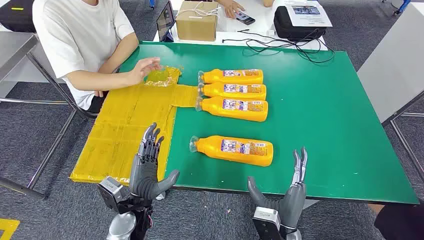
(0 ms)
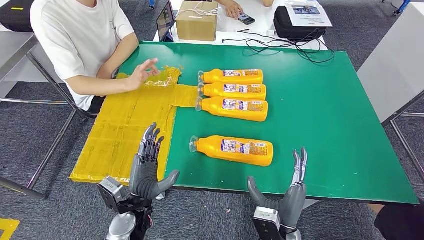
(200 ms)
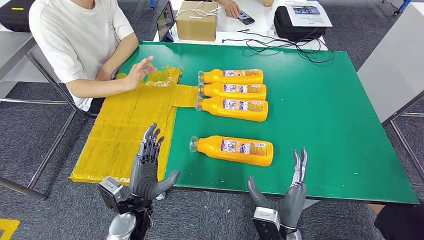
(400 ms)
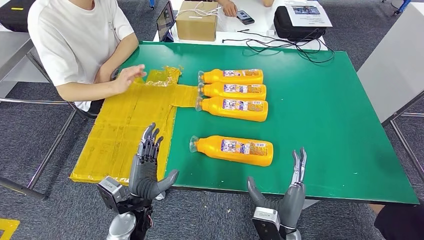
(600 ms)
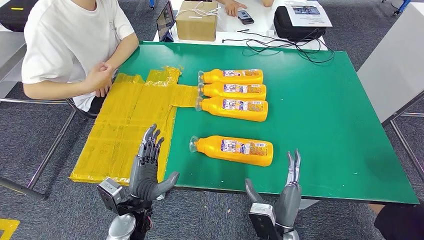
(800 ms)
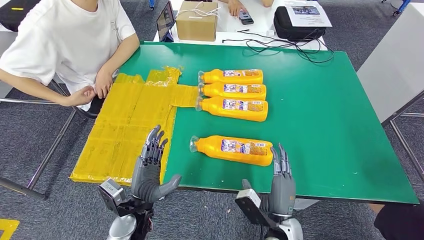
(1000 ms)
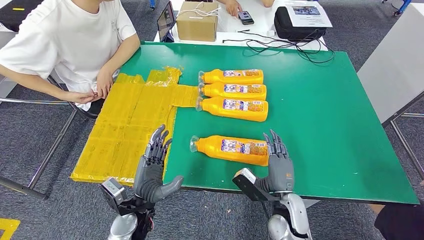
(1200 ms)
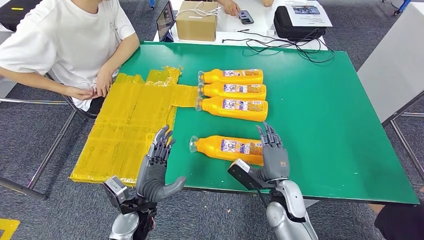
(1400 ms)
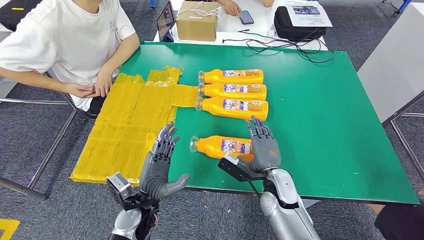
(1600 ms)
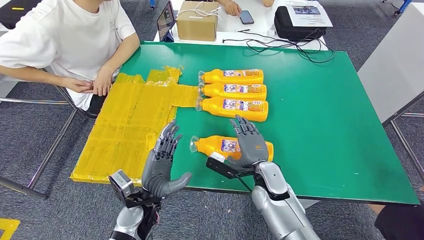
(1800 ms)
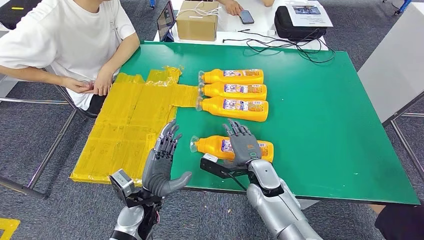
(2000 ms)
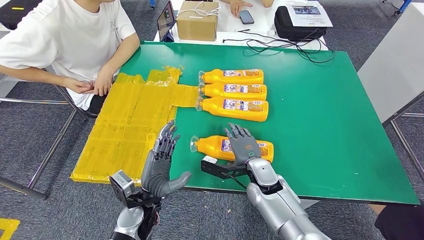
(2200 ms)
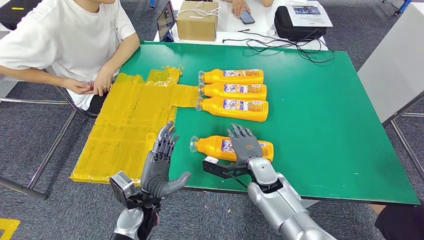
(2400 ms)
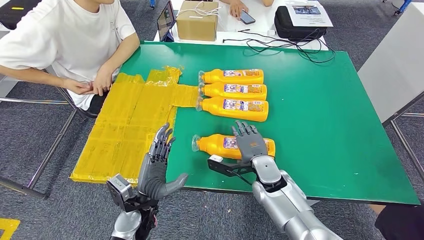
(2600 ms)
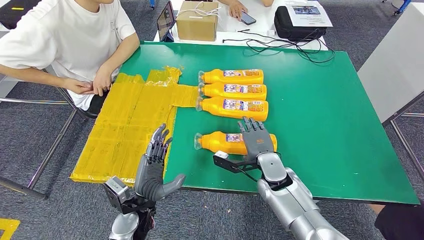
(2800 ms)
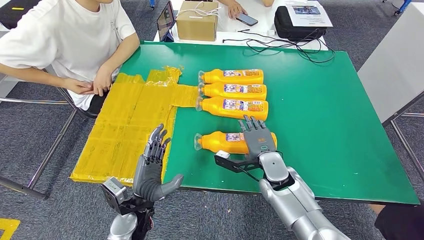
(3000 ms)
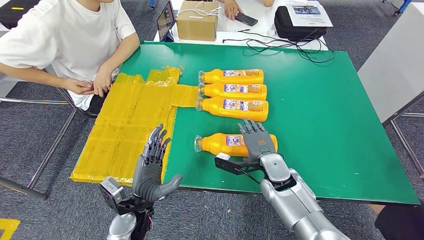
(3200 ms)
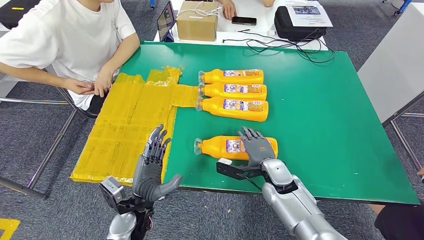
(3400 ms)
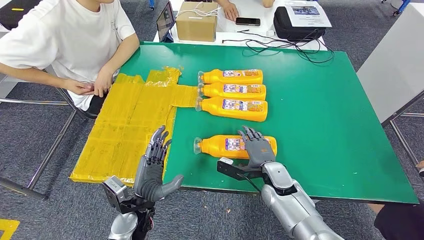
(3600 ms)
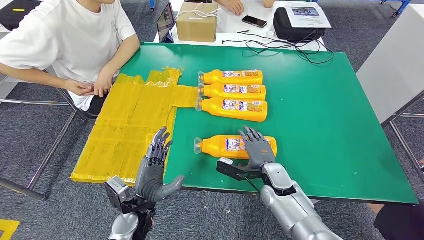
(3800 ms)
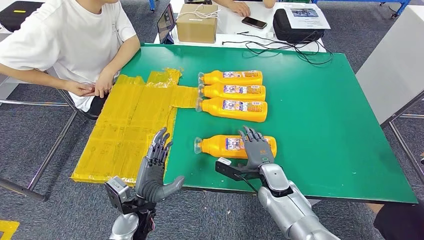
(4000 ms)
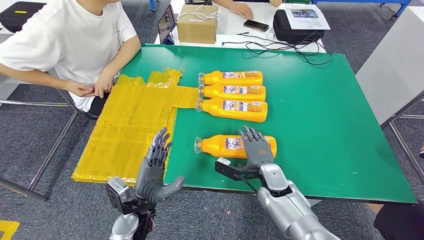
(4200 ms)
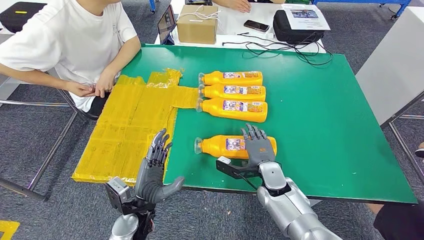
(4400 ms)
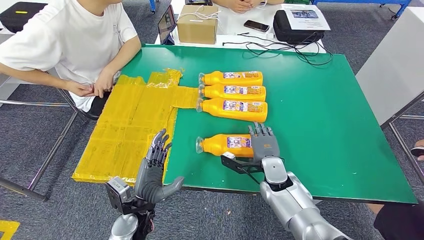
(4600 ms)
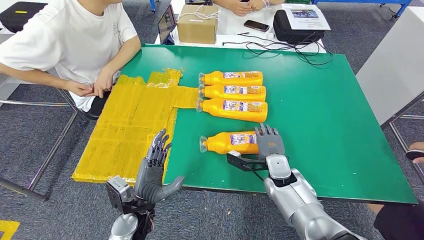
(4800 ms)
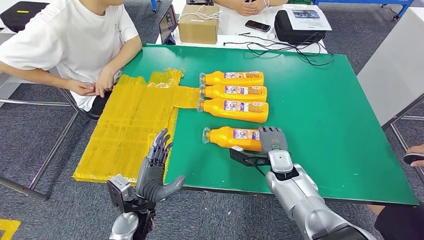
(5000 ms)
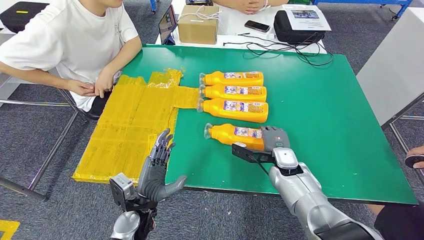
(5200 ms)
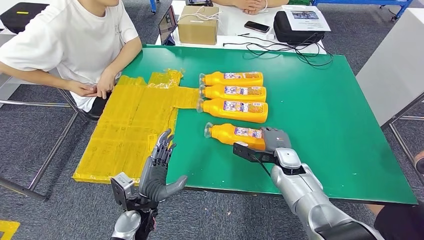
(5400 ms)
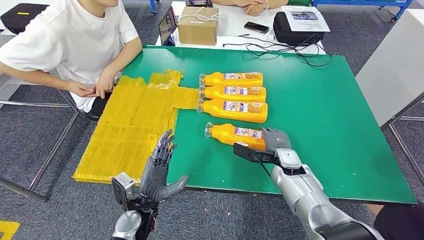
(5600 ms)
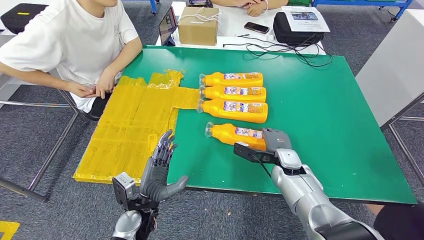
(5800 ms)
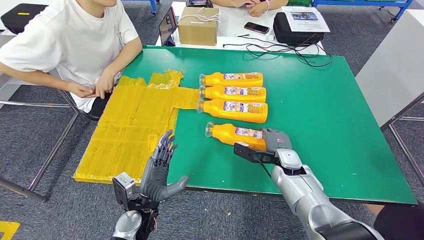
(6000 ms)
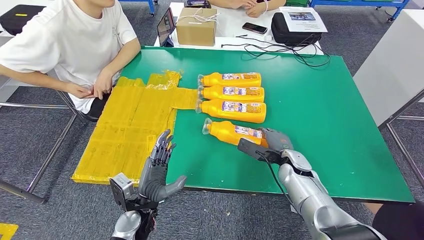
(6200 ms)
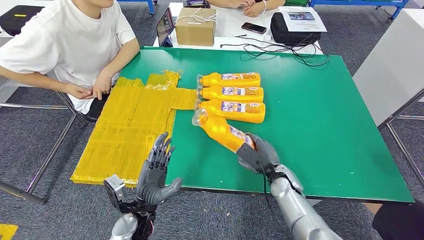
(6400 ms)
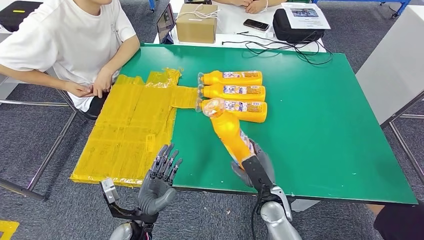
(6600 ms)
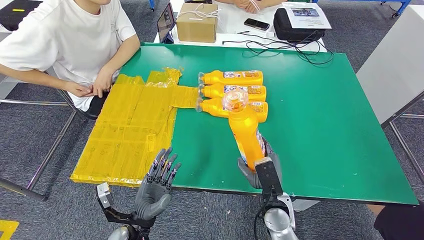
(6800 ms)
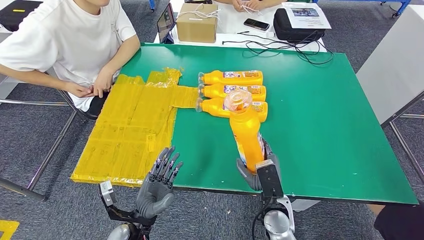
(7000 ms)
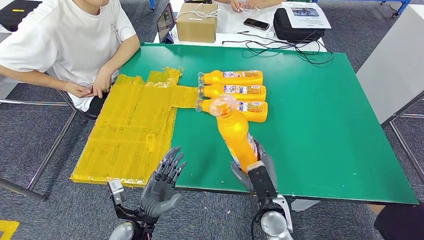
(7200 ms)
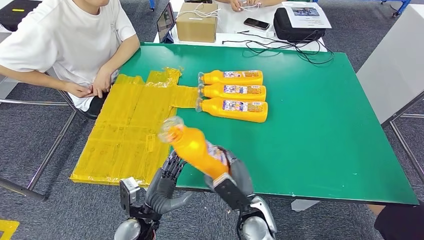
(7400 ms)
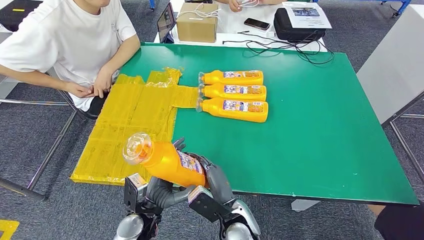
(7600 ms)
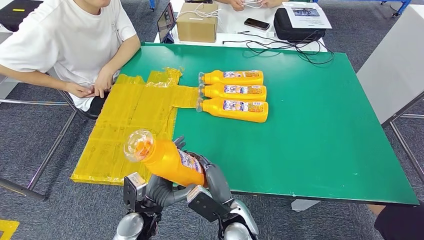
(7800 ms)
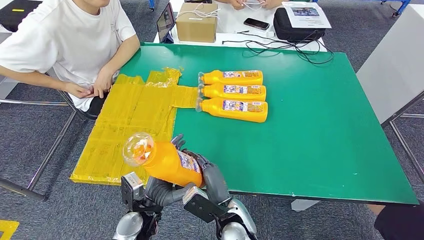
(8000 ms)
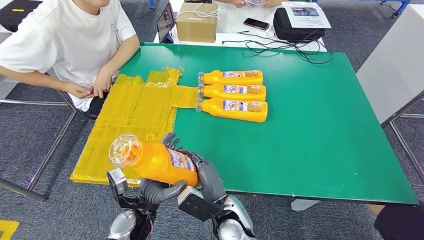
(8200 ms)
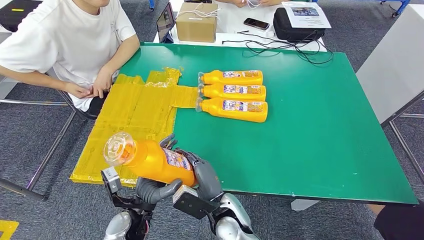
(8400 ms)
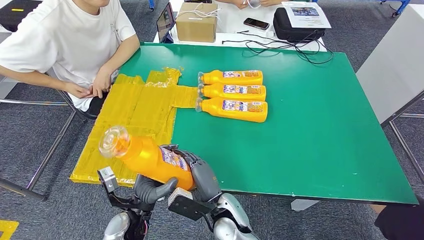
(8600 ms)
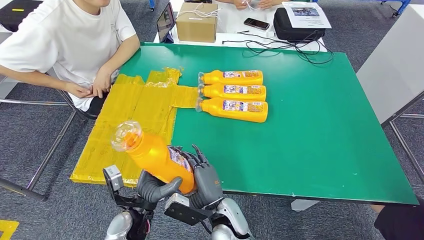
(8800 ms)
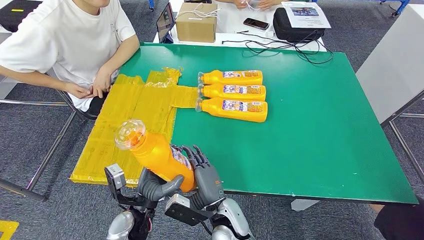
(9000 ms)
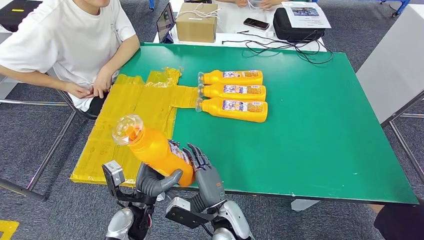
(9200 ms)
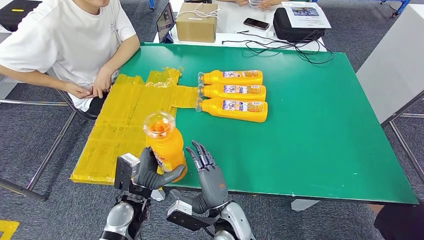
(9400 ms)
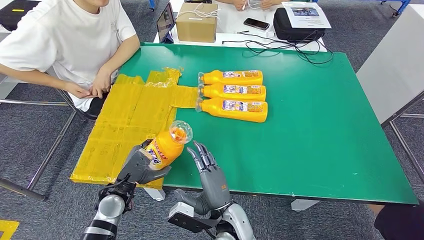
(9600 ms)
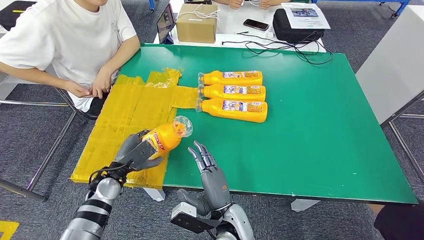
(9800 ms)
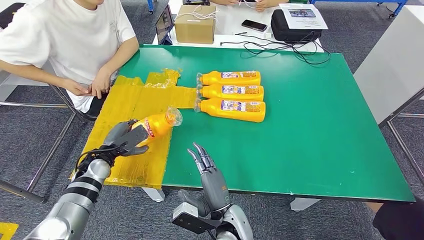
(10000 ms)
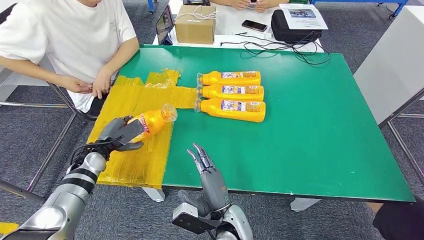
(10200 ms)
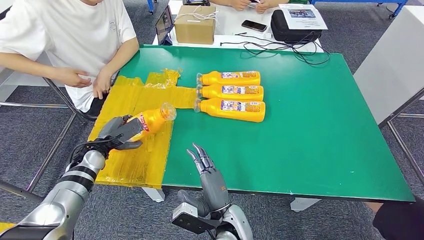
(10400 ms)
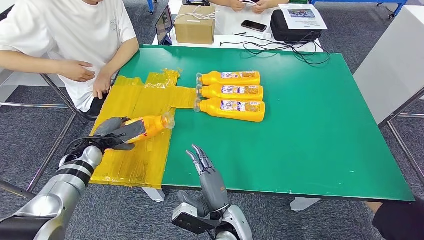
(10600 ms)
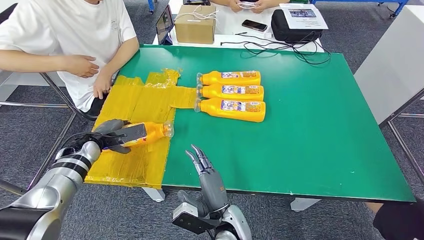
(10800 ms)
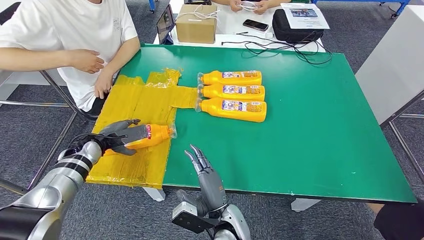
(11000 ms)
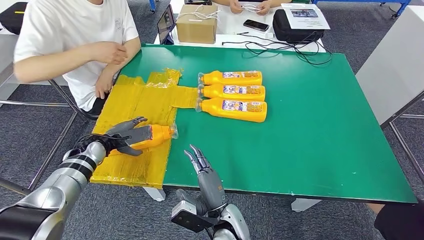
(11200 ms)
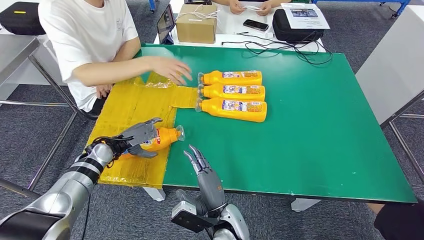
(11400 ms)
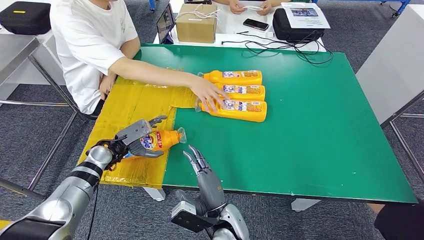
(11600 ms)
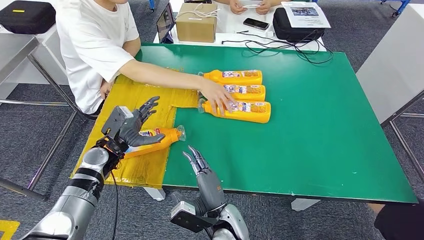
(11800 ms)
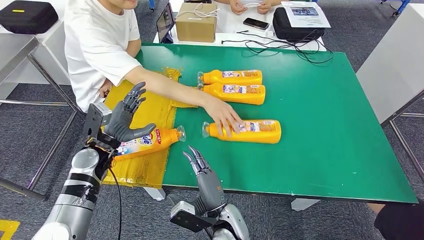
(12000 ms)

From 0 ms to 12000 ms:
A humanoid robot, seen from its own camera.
Step, from 0 ms to 8600 ms: Take the fast-moving consumer goods bottle from the table.
From 3000 ms to 4400 ms: The hands make only small movements.
From 4400 ms to 6000 ms: The right hand travels to the right by some 5 cm.
From 7600 ms to 9000 ms: The hands move only a little.

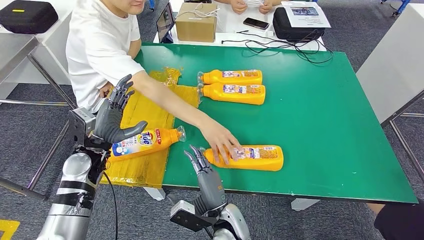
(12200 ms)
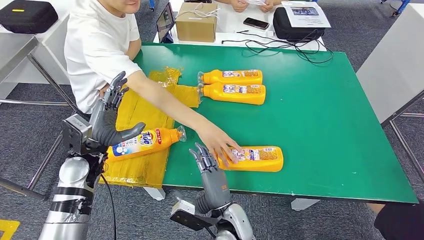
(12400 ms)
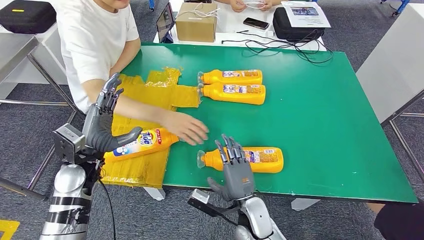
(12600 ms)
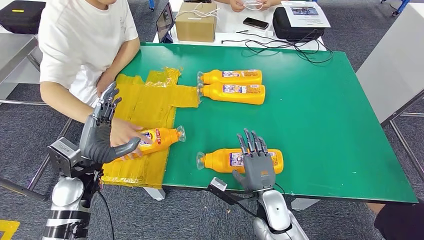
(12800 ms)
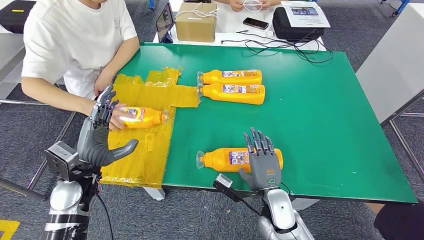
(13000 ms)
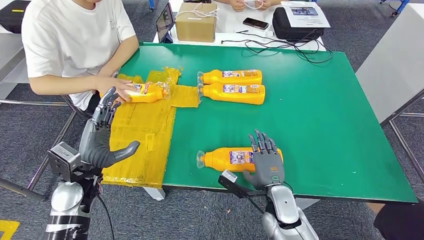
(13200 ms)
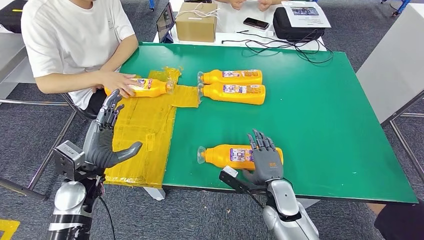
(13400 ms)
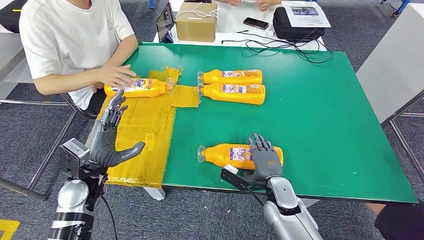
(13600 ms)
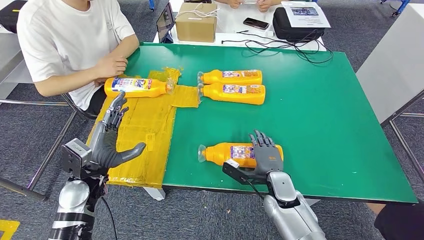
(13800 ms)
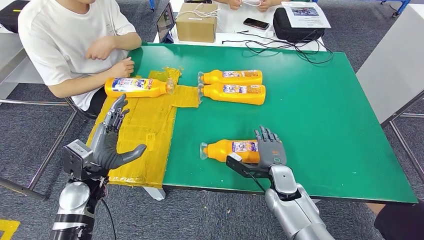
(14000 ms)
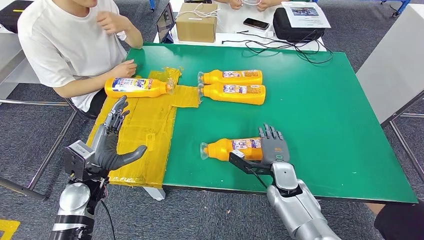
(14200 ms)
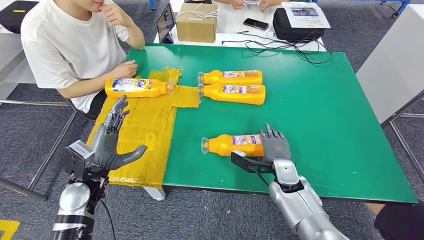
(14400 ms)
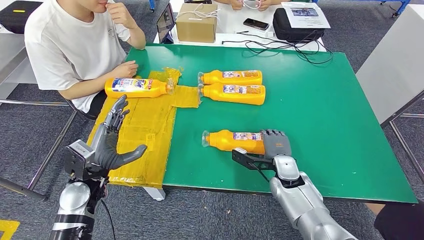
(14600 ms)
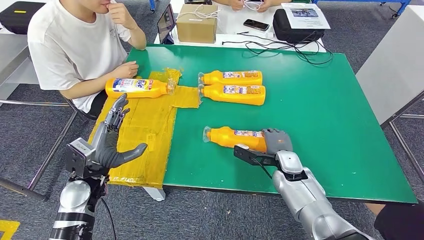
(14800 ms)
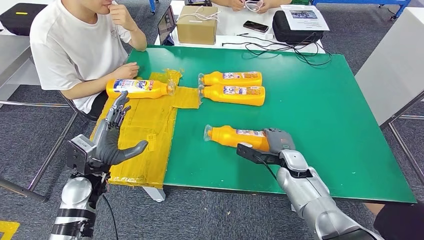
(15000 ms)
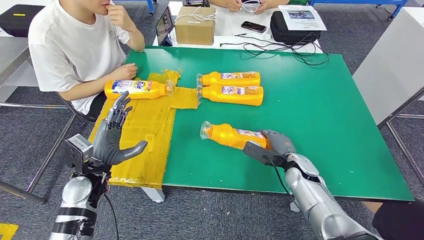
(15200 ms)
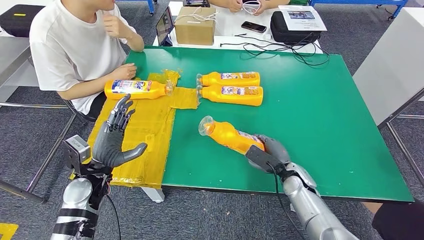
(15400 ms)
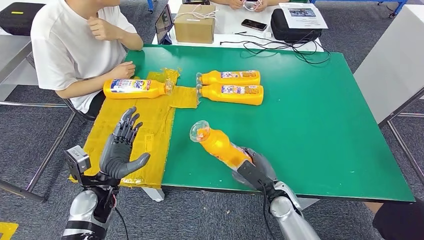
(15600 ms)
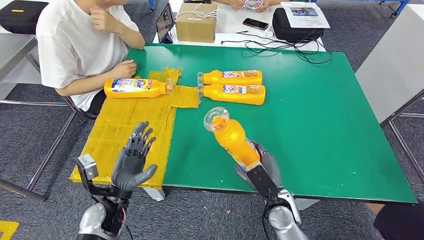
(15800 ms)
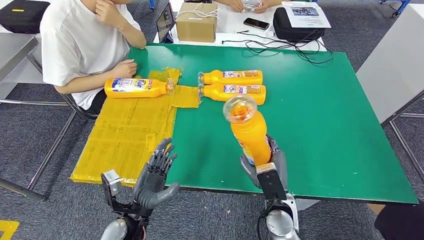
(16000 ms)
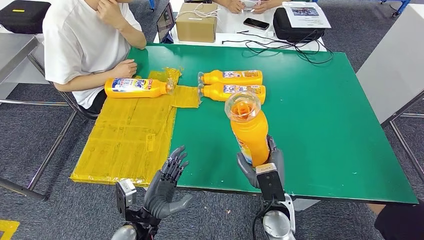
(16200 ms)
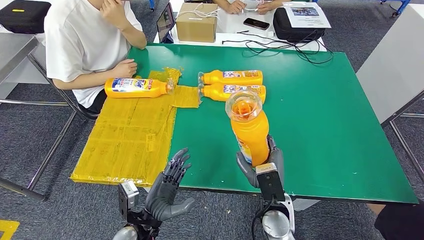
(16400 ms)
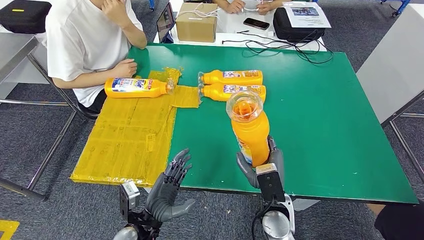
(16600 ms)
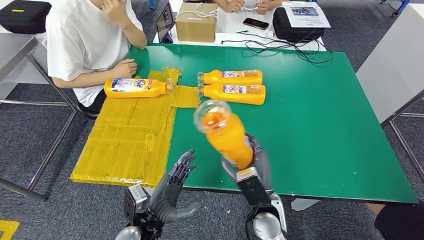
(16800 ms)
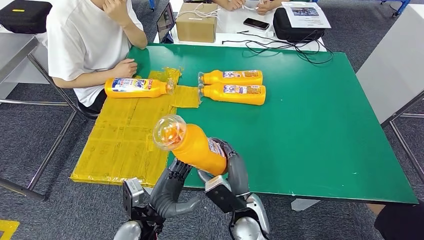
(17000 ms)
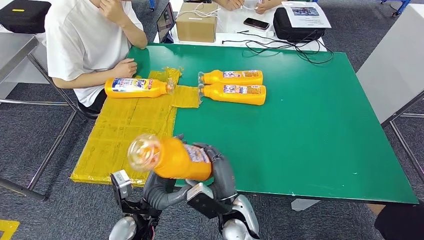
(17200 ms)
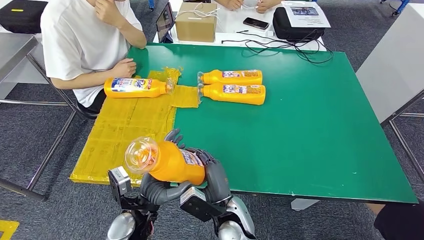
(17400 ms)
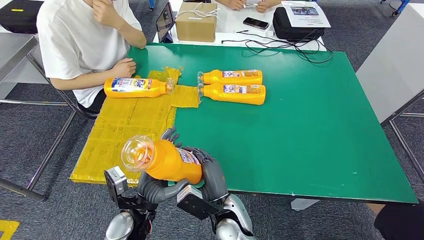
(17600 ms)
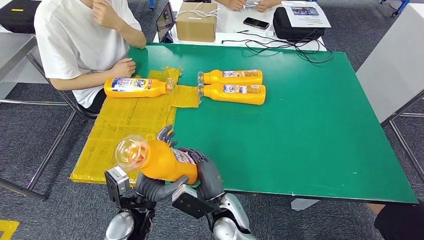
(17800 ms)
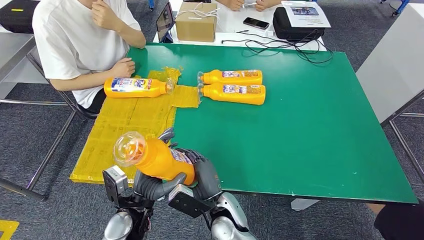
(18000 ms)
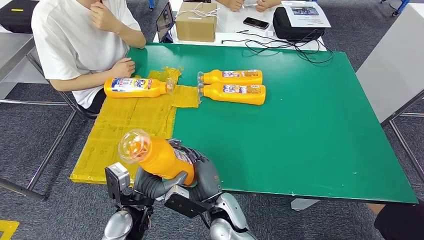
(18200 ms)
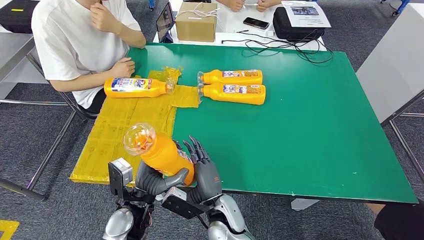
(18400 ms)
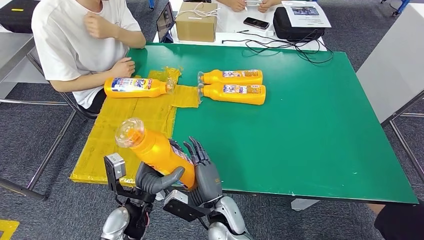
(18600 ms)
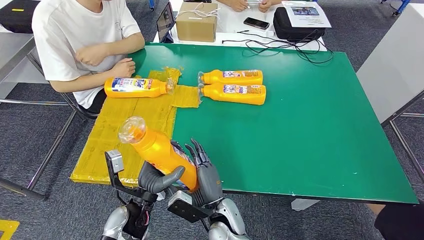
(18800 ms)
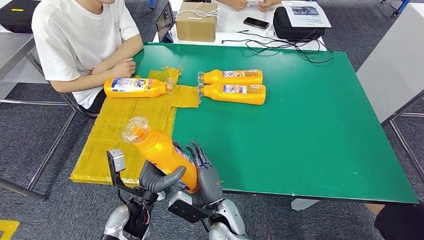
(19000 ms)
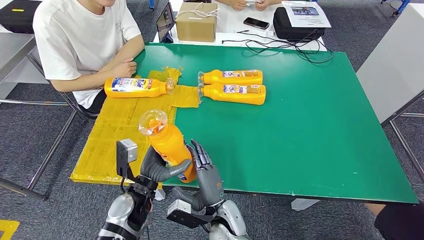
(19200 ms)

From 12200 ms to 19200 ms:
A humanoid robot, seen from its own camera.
Step, from 12800 ms to 18400 ms: Pick up the fast-moving consumer goods bottle from the table.
From 16400 ms to 17800 ms: The right hand goes about 10 cm to the left.
